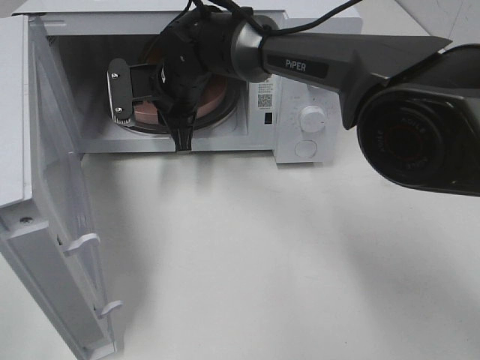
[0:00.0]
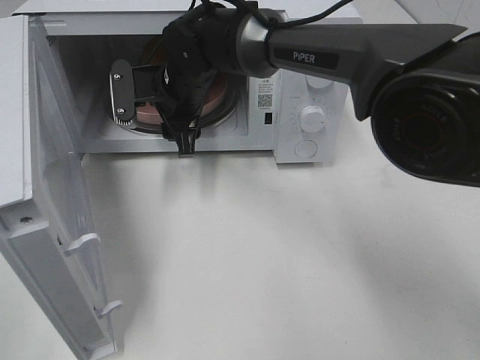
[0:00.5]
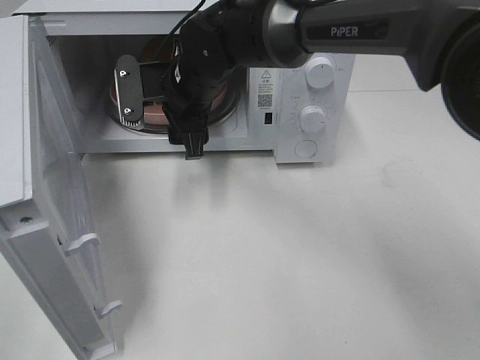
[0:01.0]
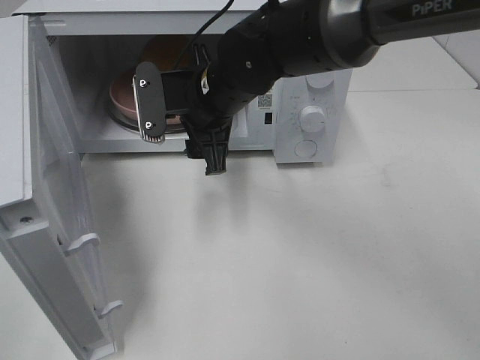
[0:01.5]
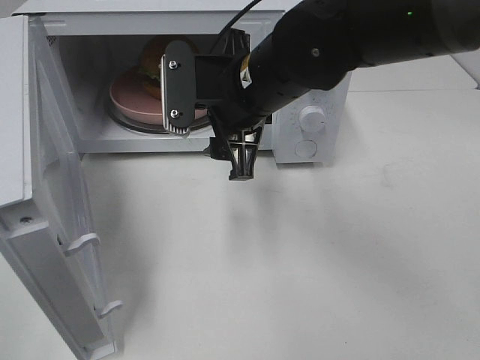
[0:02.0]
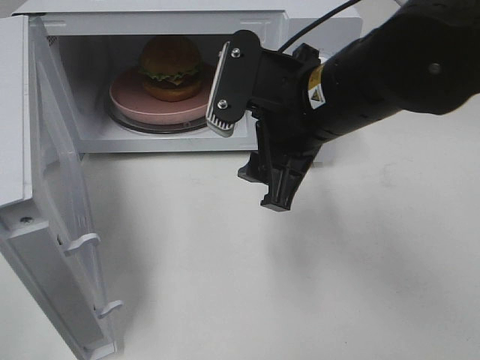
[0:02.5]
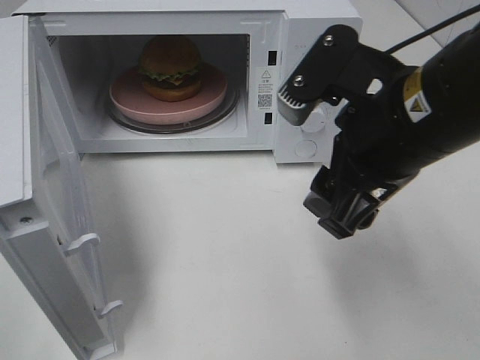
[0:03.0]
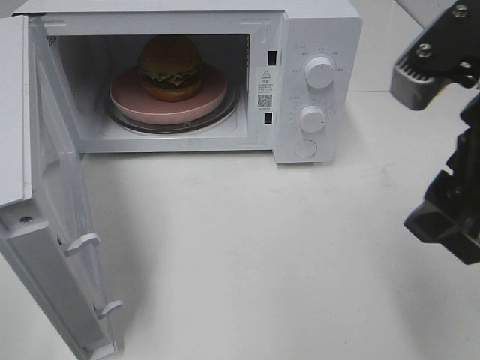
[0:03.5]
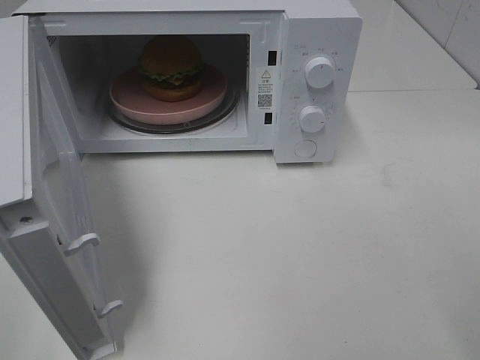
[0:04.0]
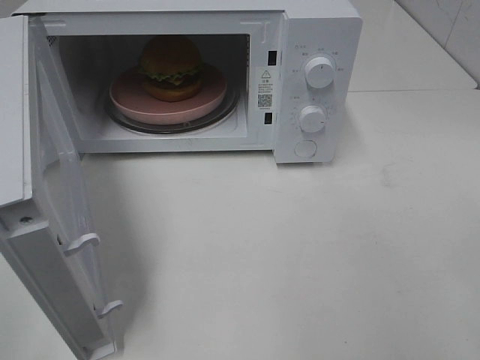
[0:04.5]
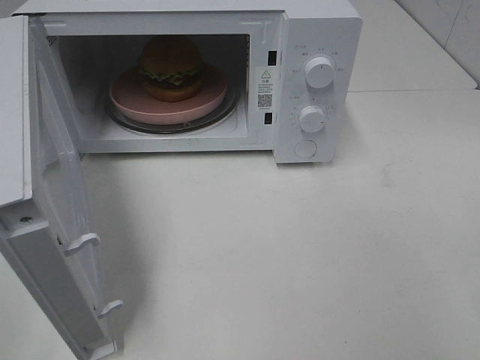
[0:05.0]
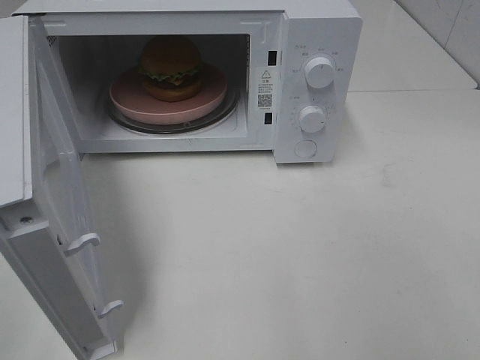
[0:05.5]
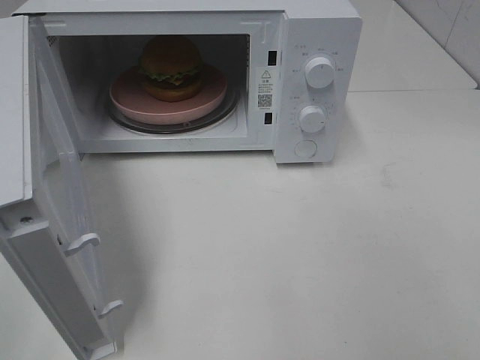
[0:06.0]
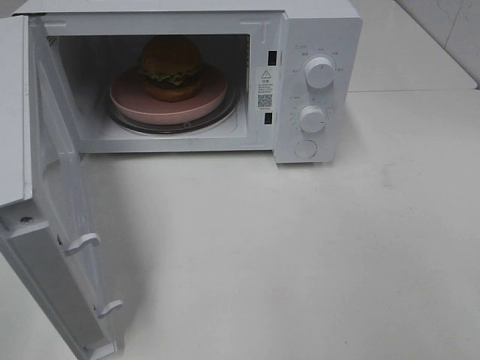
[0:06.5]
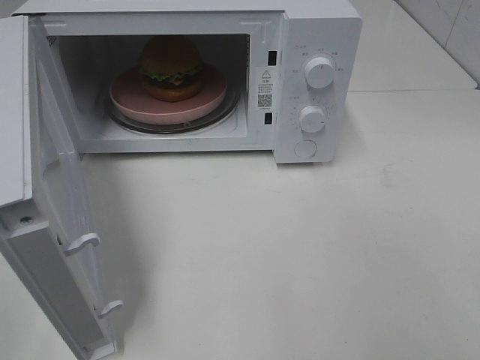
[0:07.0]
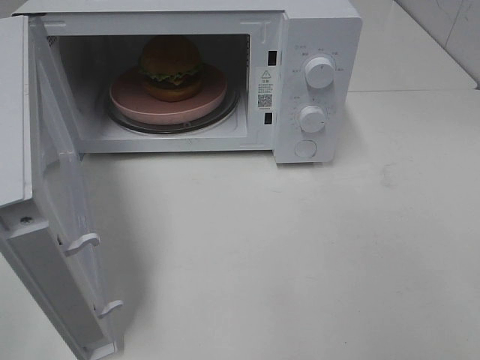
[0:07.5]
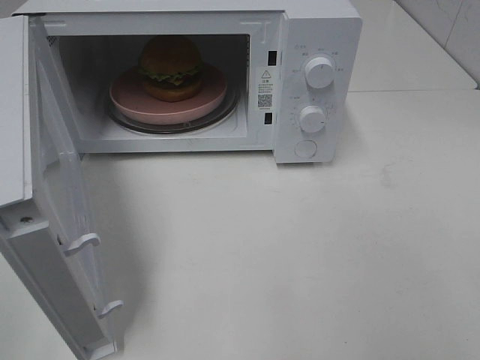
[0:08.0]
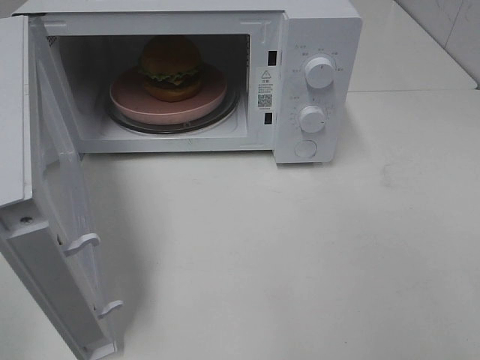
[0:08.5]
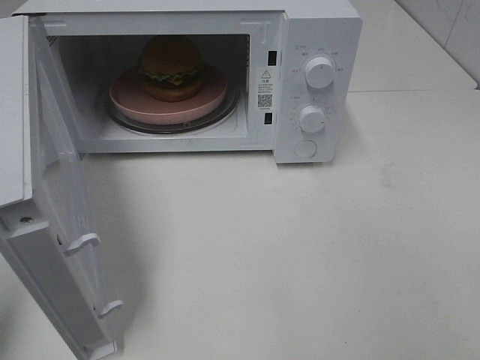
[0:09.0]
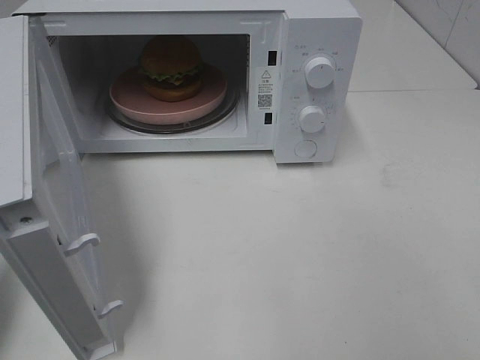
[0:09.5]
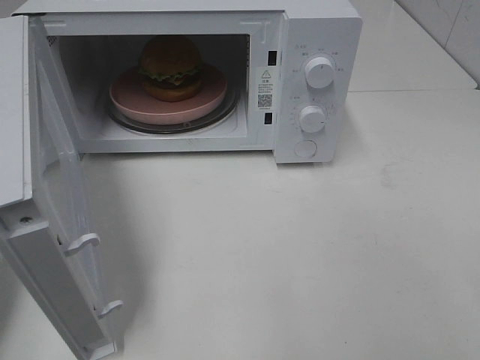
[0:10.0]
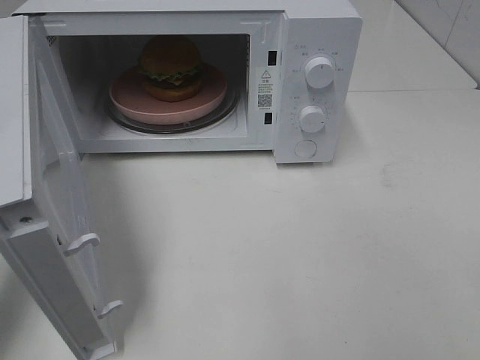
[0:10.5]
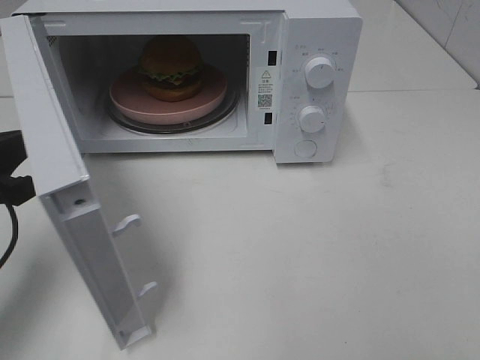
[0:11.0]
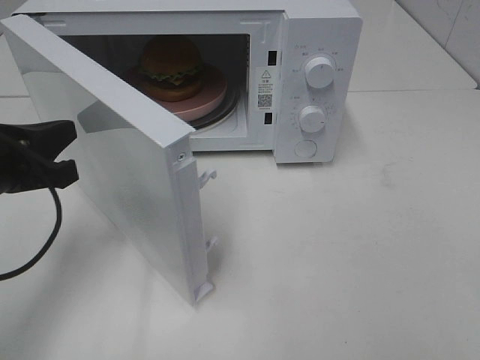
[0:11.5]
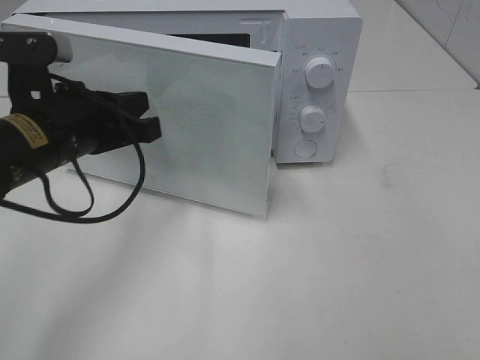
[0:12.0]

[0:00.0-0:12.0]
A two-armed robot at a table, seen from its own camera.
Task of the whole recording: Heat the burger.
0:00.0 to 0:02.0: The right gripper shifts about 15 cm backward, to the right and upward, and opens up.
0:02.0 to 0:04.0: The right gripper travels backward, to the right and upward by approximately 30 cm.
0:06.0 to 0:08.0: Both grippers stay put.
0:08.0 to 0:10.0: The left gripper is displaced forward by roughly 20 cm, and closes up.
0:10.0 to 0:12.0: The left gripper is displaced to the right and forward by roughly 20 cm.

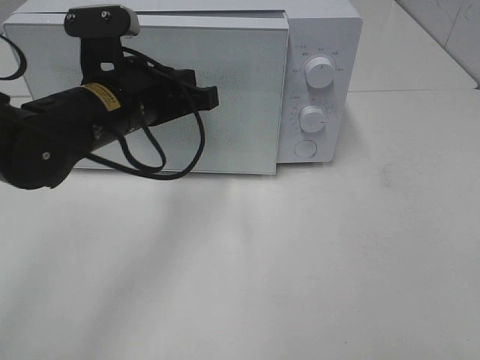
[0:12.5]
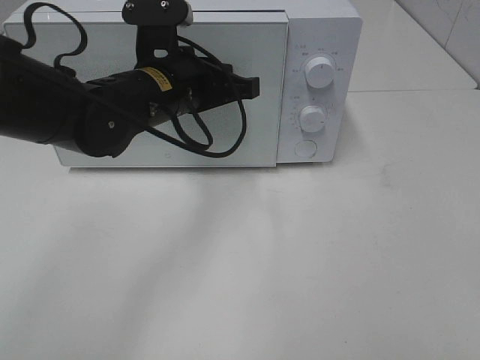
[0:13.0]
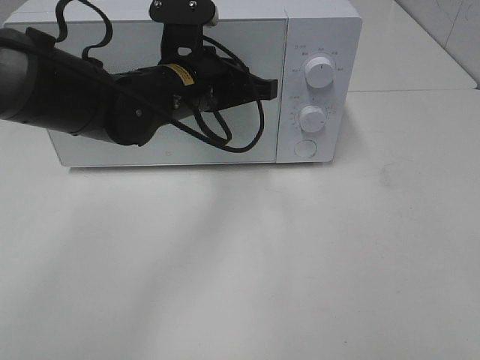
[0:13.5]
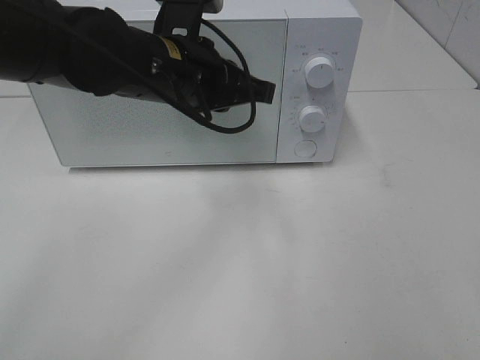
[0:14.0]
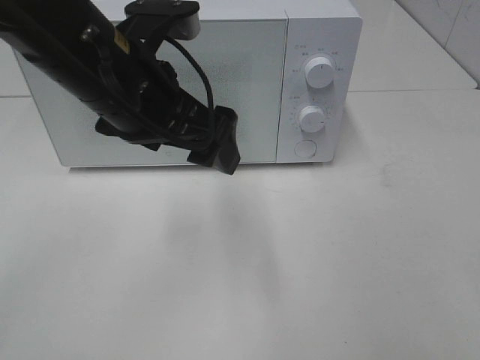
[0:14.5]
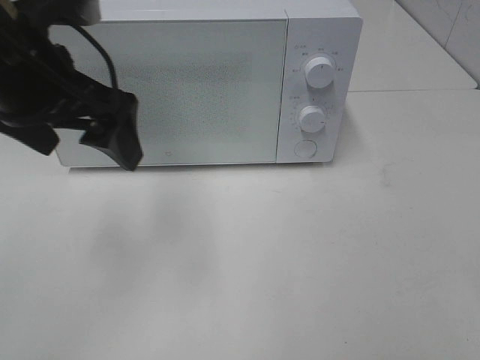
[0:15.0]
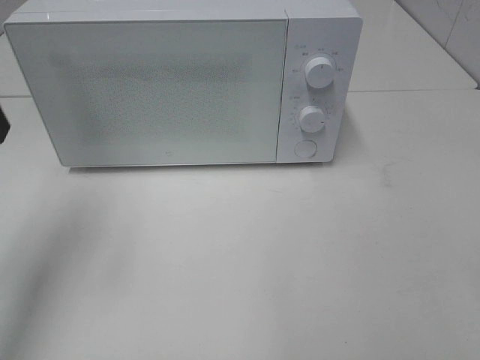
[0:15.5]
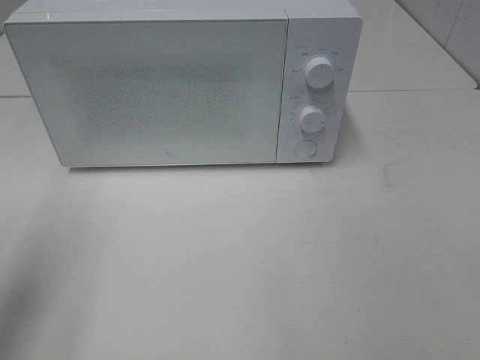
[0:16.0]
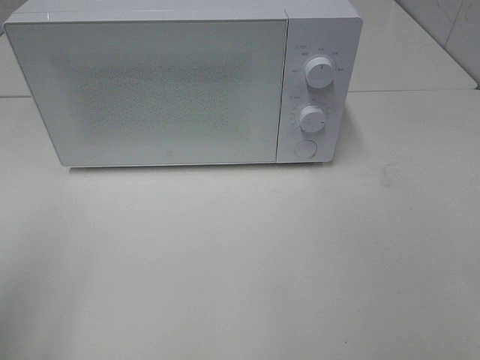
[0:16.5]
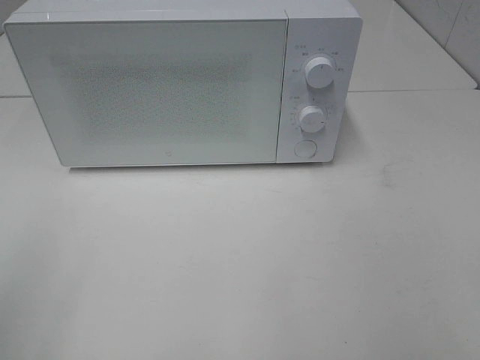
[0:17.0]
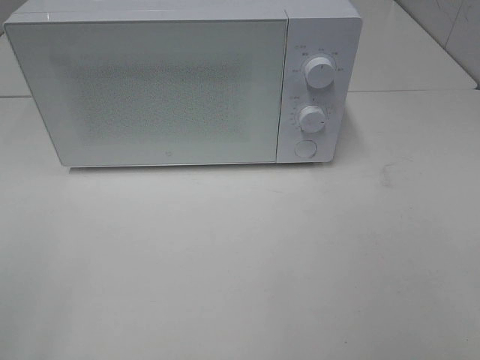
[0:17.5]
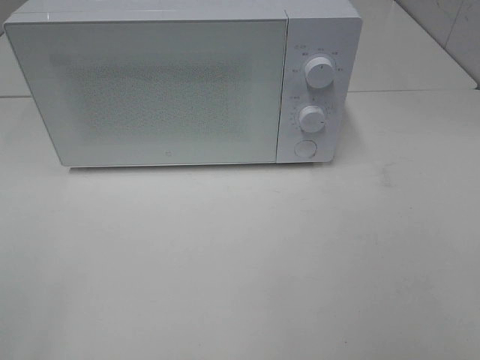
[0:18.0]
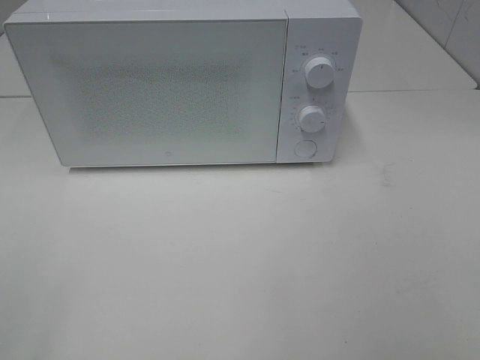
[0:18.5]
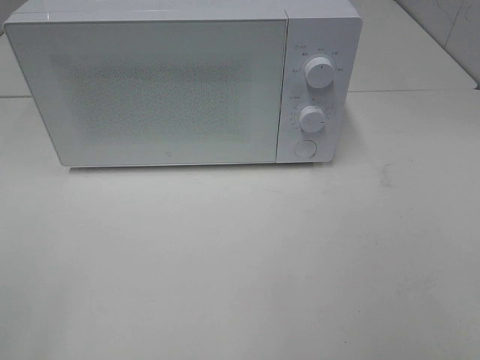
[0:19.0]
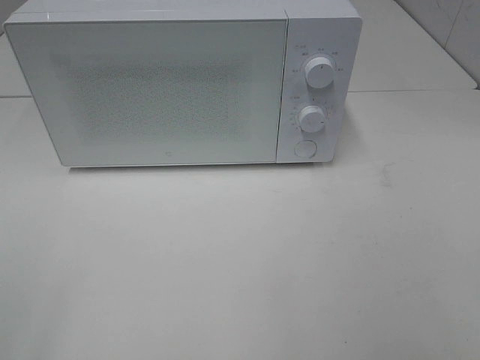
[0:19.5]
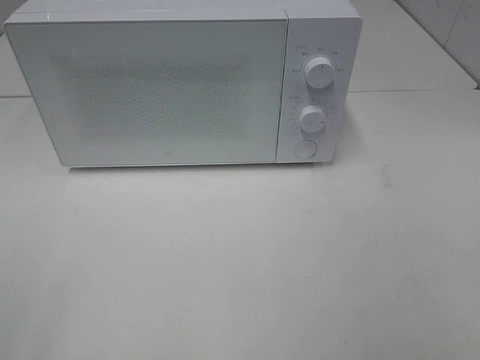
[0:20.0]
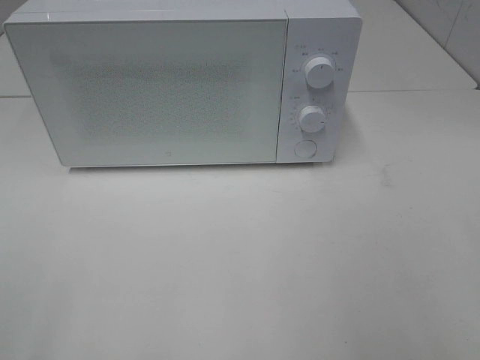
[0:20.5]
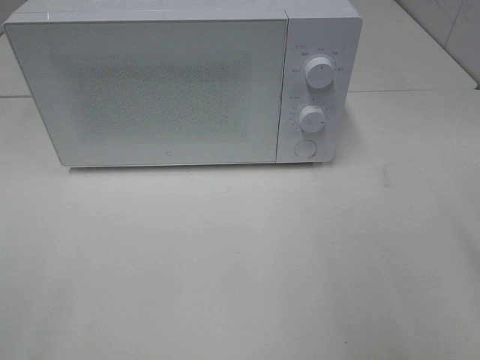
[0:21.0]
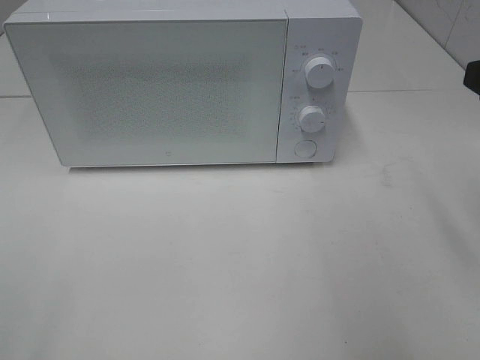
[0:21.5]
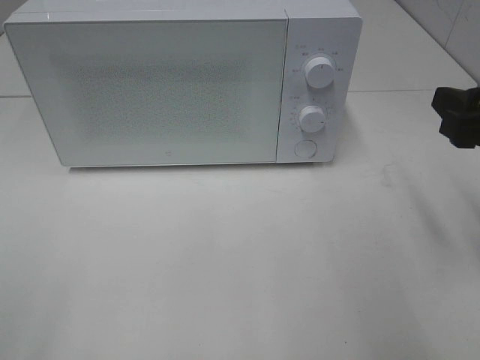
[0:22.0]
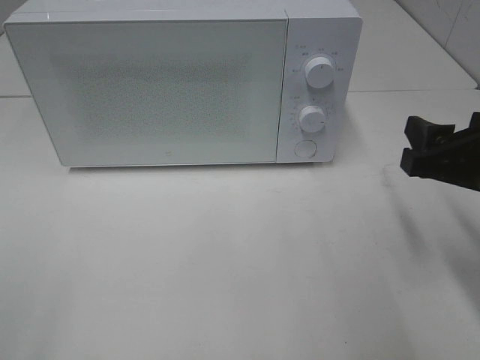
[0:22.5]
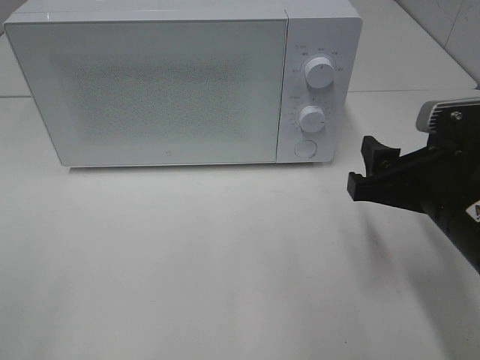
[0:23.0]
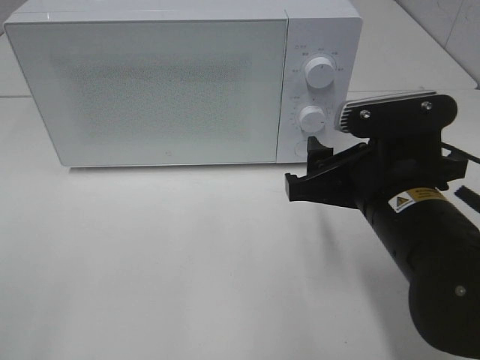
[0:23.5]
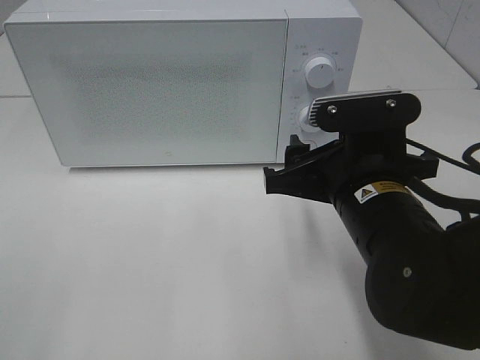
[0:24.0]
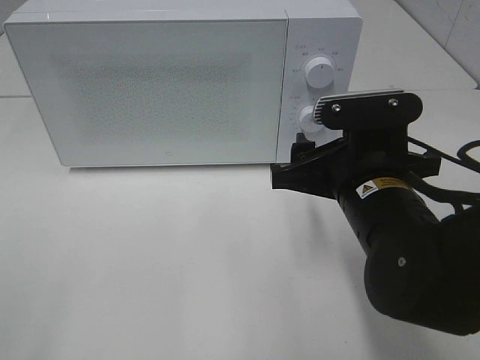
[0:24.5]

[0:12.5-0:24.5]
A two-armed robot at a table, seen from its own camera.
Task of the whole recording: Heat the burger.
0:12.5 to 0:14.5: The left gripper is displaced upward by roughly 5 cm, and opens its fingers.
0:14.5 to 0:16.5: The left gripper travels to the left and backward by approximately 25 cm.
0:20.5 to 0:22.5: The right gripper shifts about 15 cm forward and downward.
0:22.5 to 0:24.5: The right gripper shifts approximately 10 cm to the left.

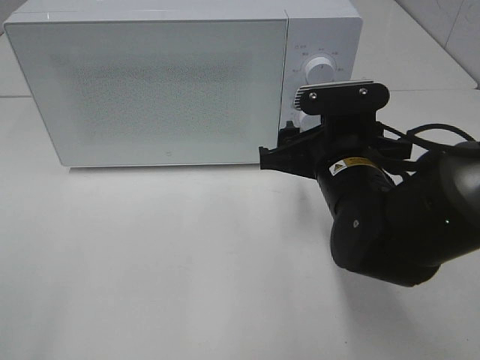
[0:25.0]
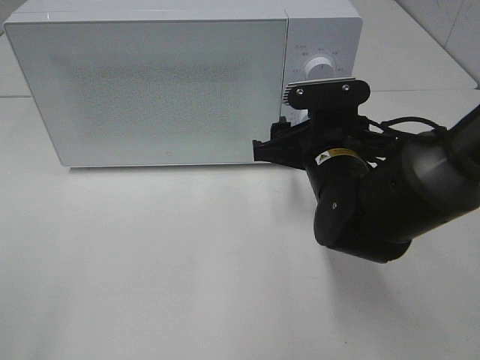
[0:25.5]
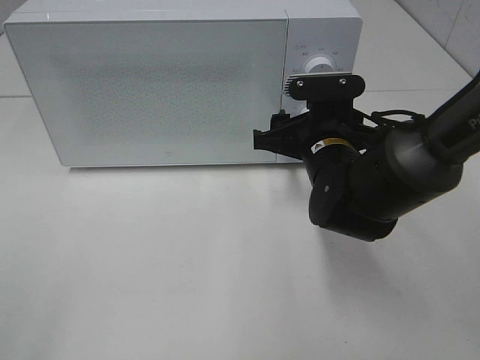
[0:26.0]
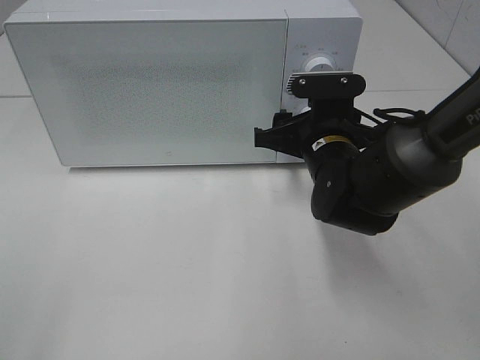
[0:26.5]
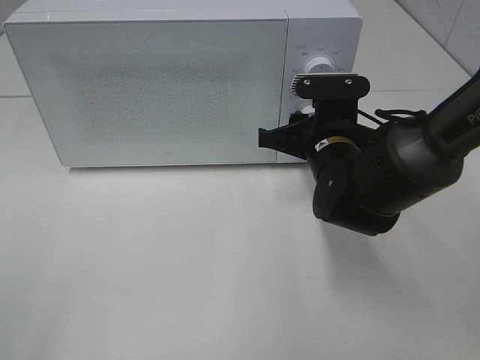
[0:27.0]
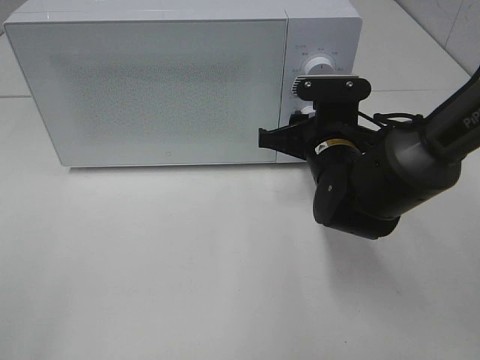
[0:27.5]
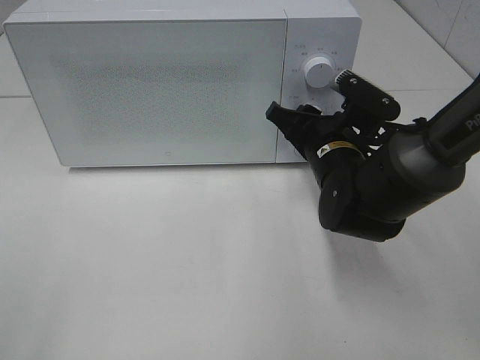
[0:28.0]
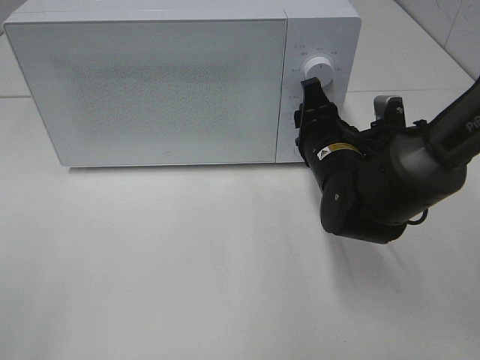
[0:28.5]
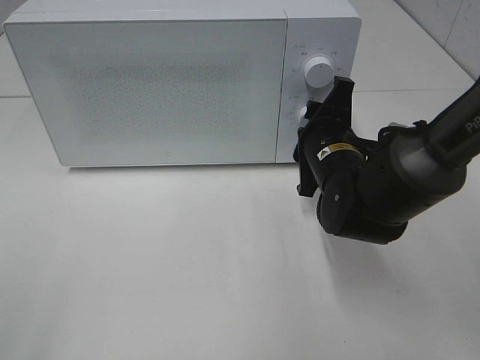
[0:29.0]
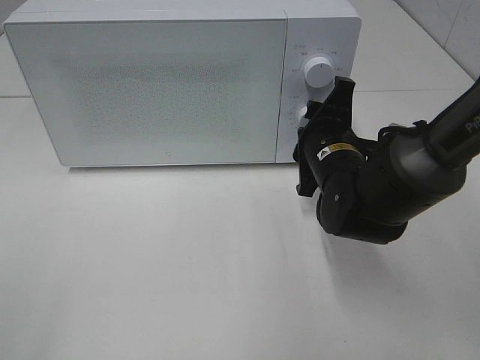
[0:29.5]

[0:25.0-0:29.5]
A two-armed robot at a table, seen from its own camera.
Task of the whole recording: Heat the burger.
0:25.0 to 0:27.0: The right gripper moves forward, roughly 5 cm.
